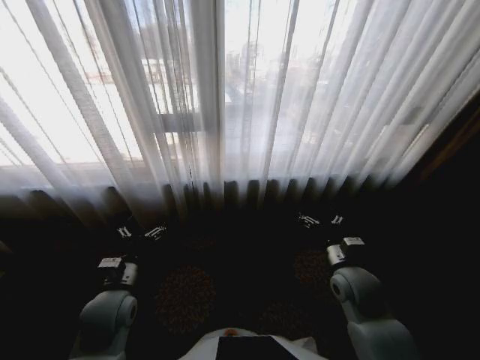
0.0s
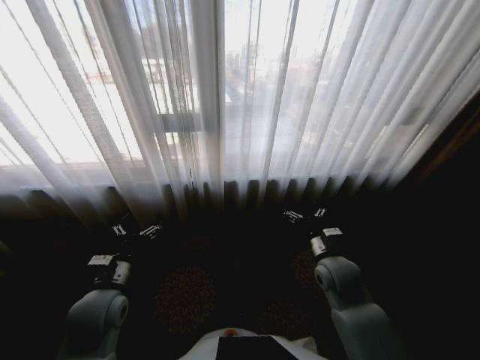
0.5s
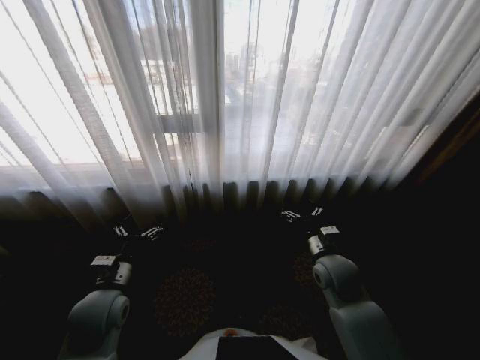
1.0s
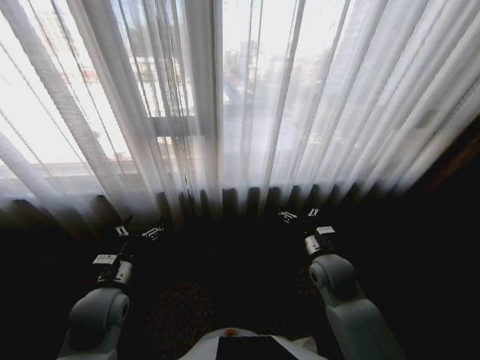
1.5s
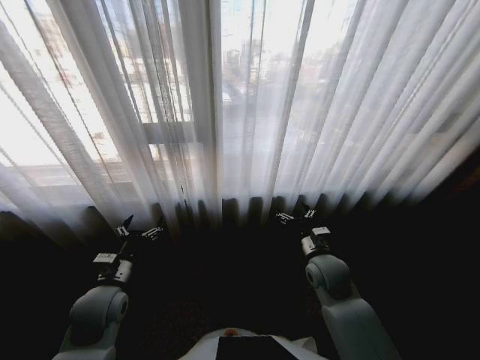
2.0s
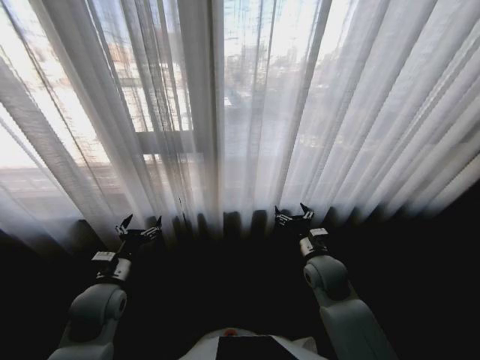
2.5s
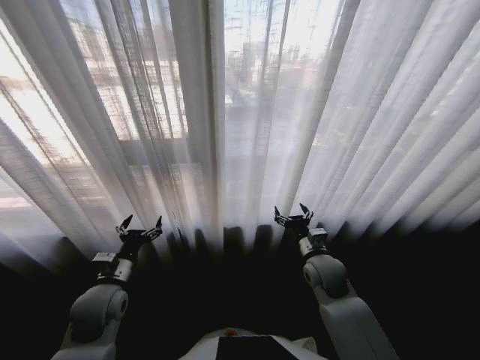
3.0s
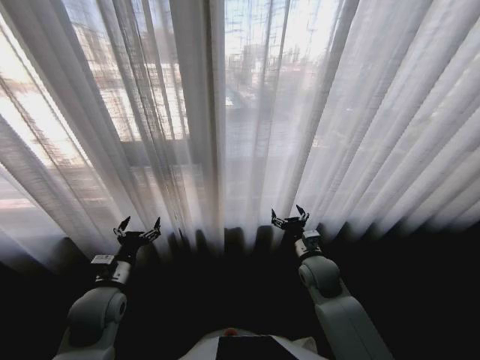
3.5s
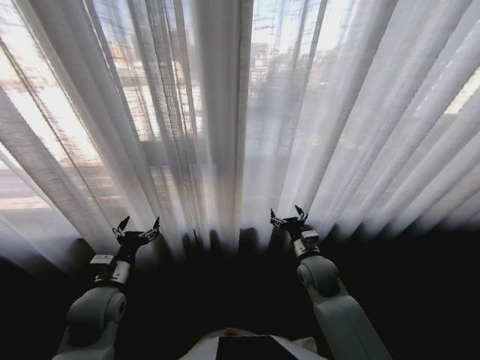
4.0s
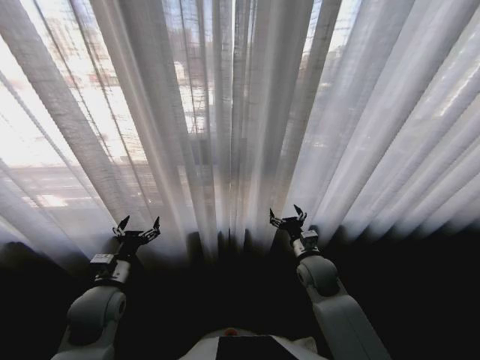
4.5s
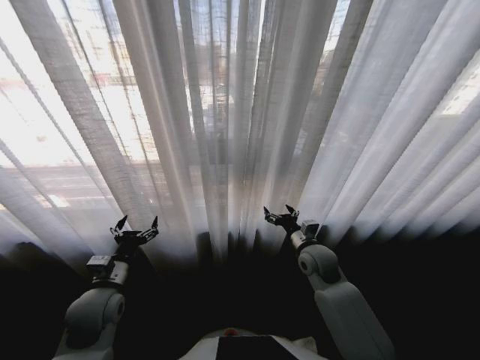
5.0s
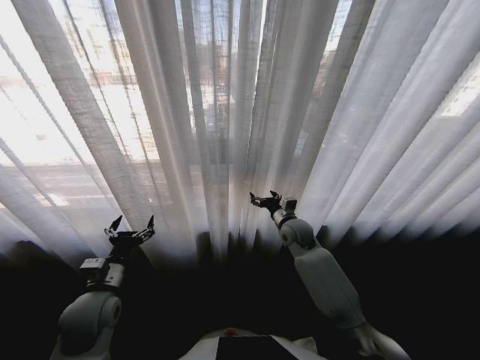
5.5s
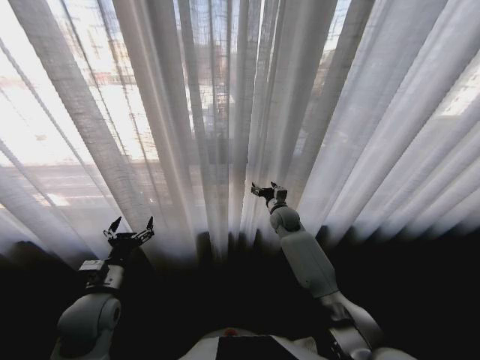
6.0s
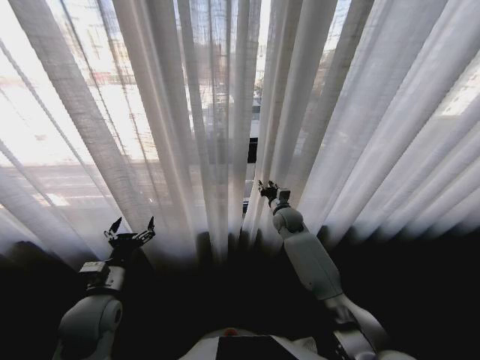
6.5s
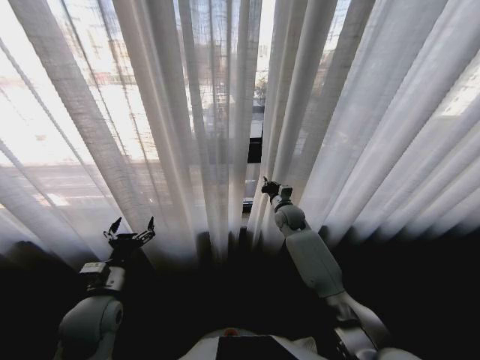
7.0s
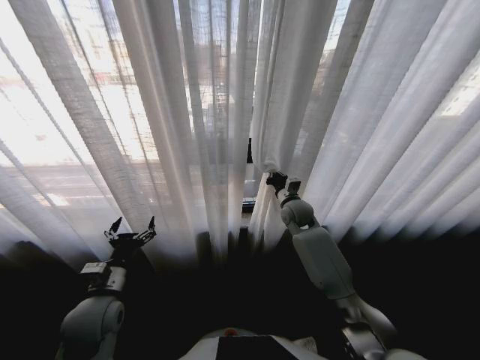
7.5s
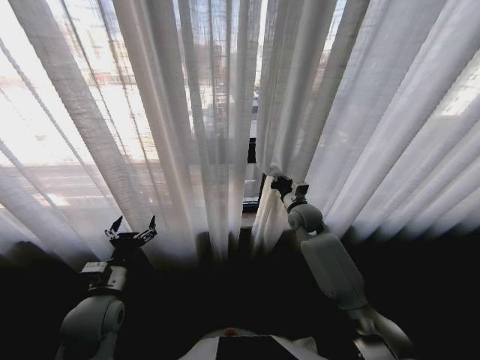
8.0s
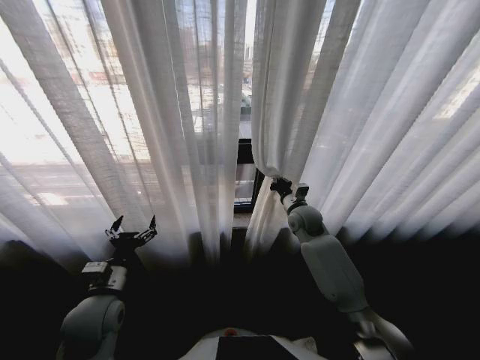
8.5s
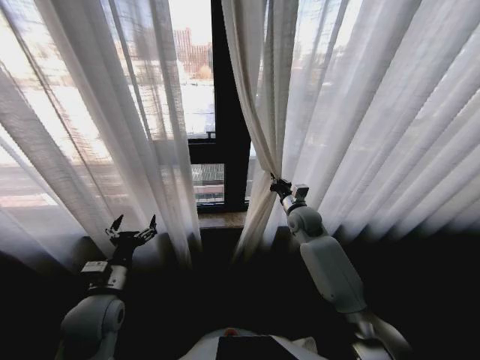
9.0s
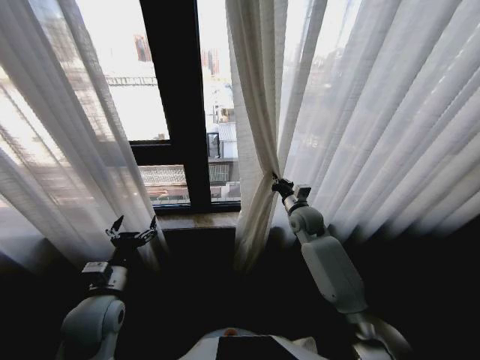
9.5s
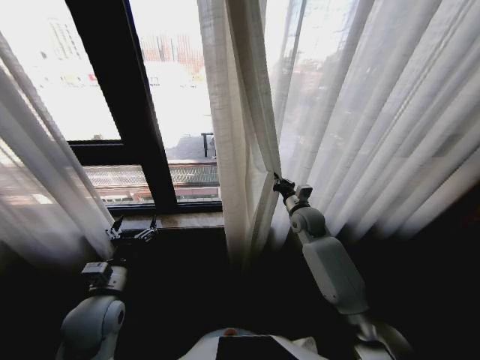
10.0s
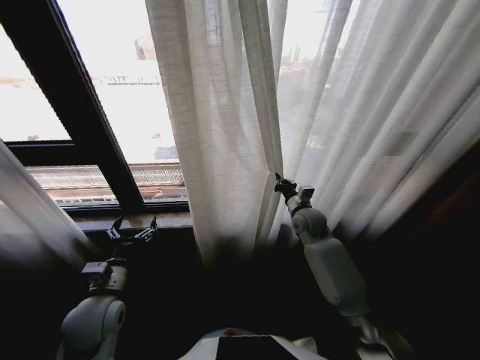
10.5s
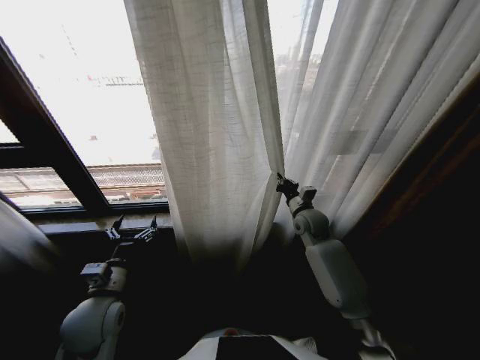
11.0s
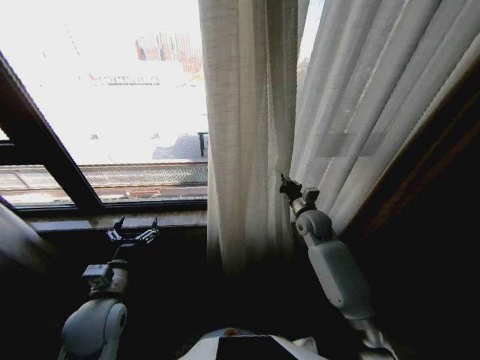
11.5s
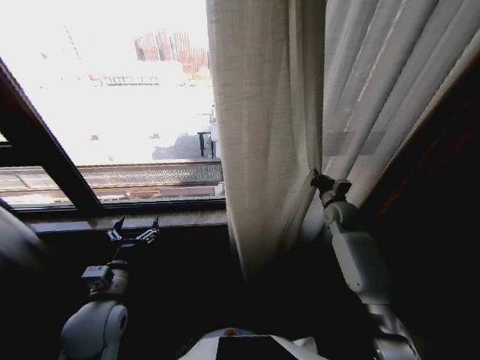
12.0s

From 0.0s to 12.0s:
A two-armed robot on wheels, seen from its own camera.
Task of the whole recording: Open the curtains by pulling them apart, changing their state from closed to fully open.
From 4.0s to 6.0s: The right gripper moves forward, roughly 20 cm.
From 6.0s to 8.0s: The right gripper travels upward by some 5 cm, and closes its fingers.
From 10.0s to 12.0s: The right gripper travels to the right by approximately 10 cm.

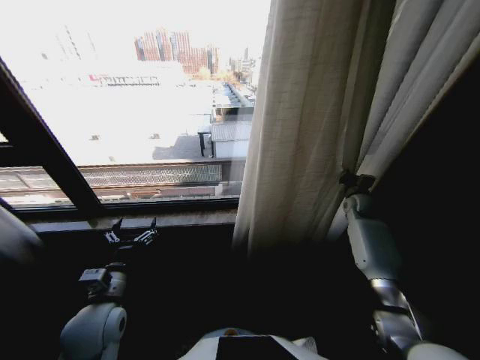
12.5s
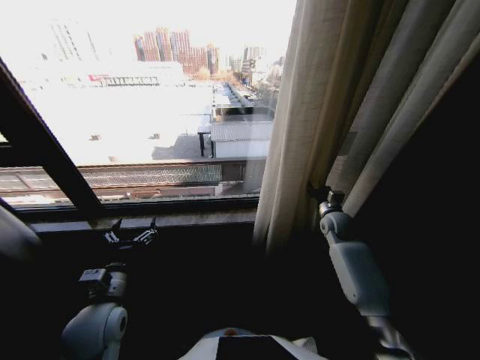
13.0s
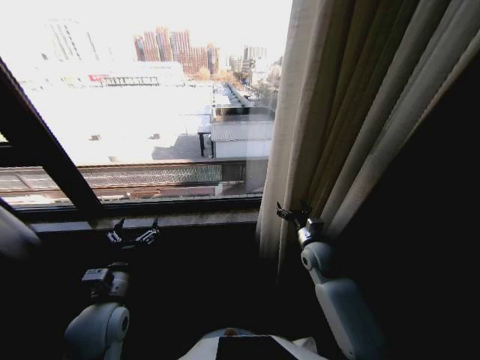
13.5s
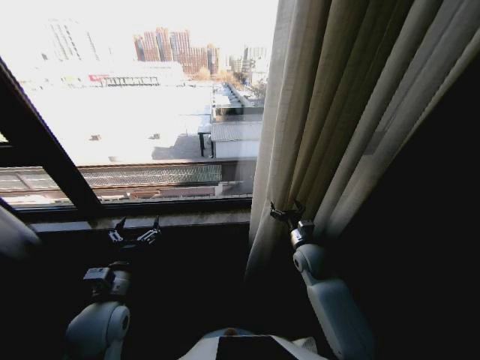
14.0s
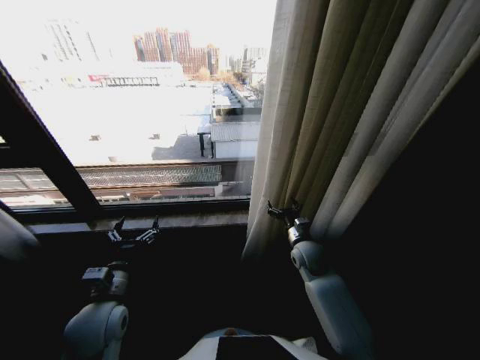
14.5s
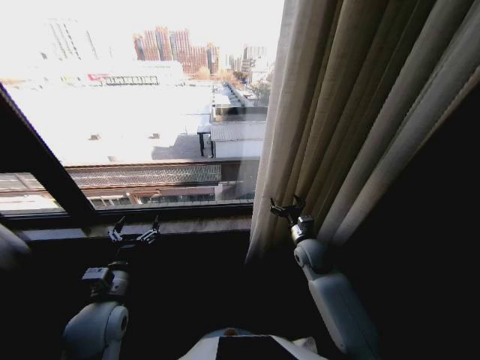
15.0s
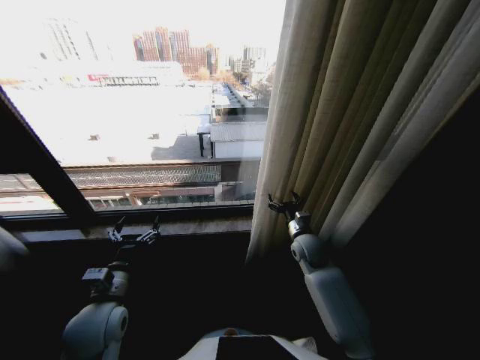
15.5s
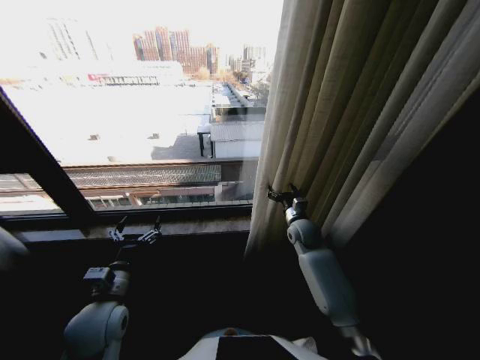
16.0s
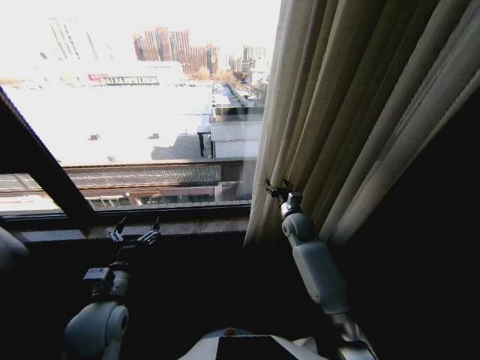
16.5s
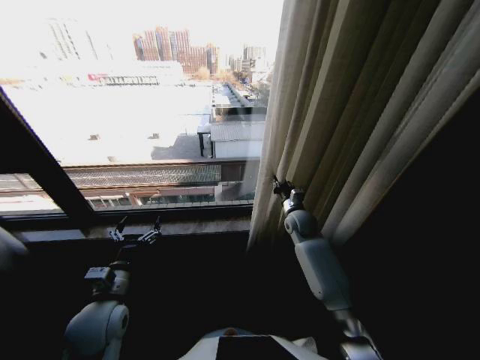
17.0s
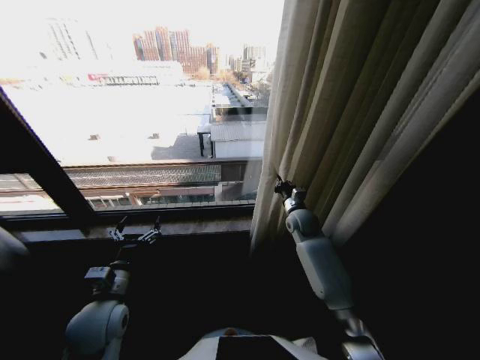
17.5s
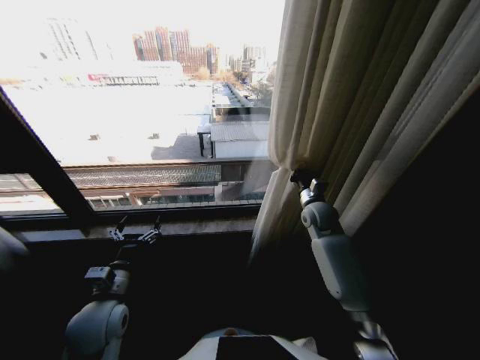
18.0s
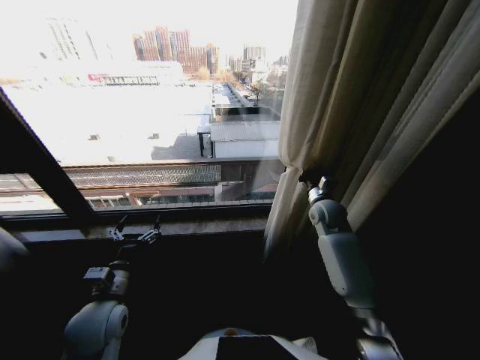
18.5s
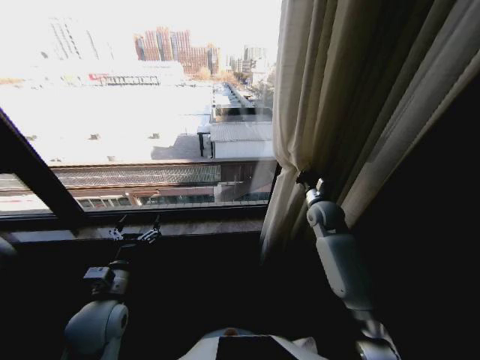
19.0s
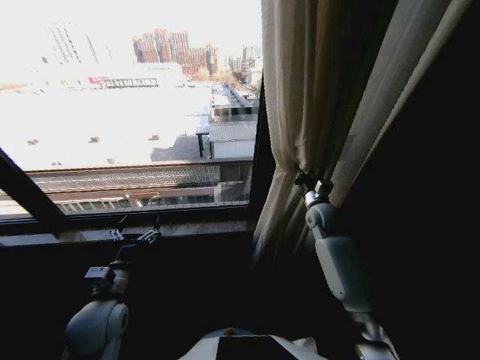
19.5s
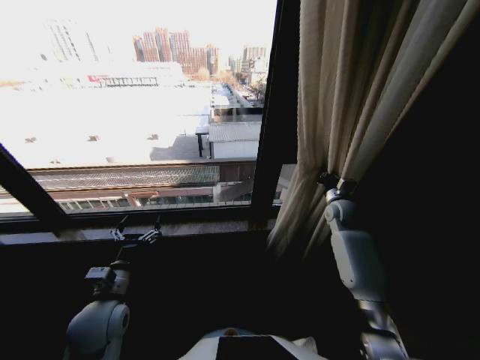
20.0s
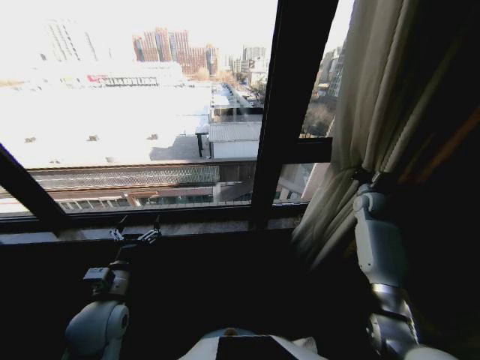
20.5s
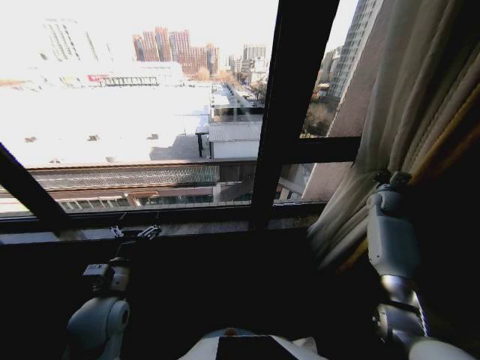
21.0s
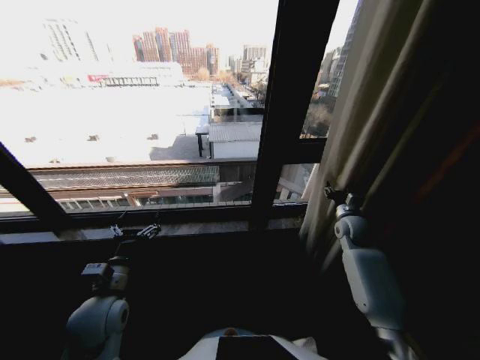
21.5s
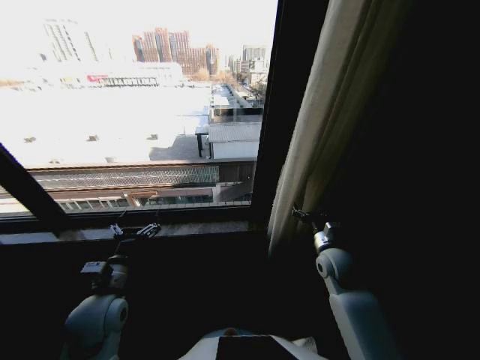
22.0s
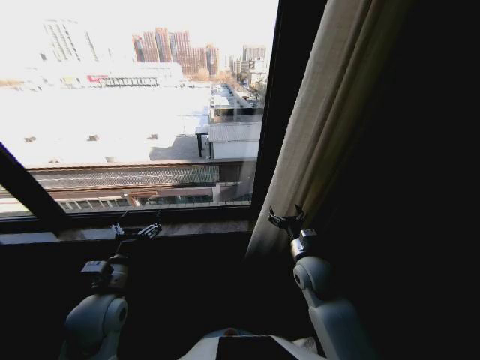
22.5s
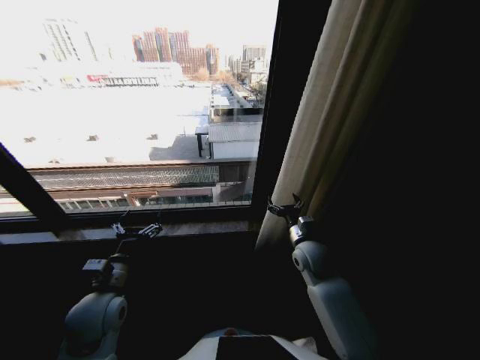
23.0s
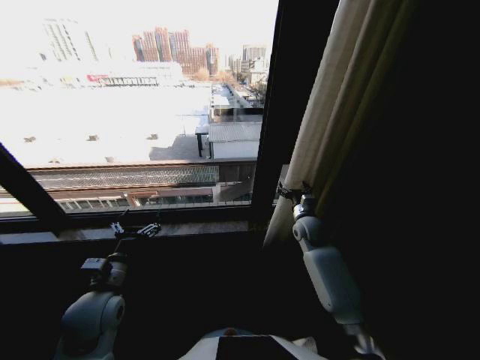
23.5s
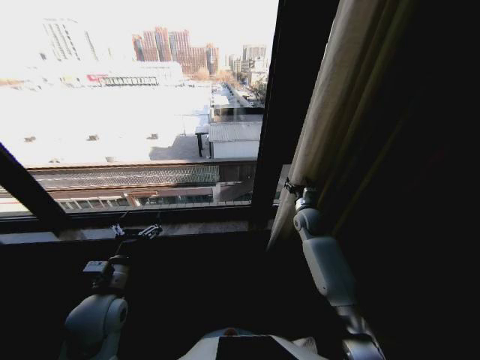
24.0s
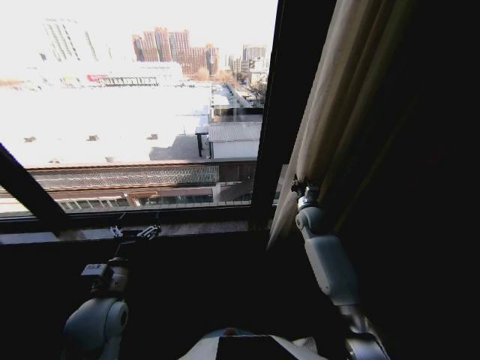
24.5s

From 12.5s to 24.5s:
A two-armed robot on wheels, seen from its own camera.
Task of the whole recording: Open the curtains by pulling them apart, changing their state from closed to fully open.
From 12.5s to 14.5s: The right gripper shifts about 25 cm to the left and backward, and opens its fingers.
From 14.5s to 16.5s: The right gripper travels forward by some 10 cm.
From 16.5s to 18.5s: The right gripper moves to the right and upward, about 10 cm, and closes up.
From 18.5s to 20.5s: The right gripper shifts about 15 cm to the right.
From 20.5s to 22.5s: The right gripper travels to the left and backward by roughly 30 cm, and opens.
From 22.5s to 24.5s: The right gripper travels forward by approximately 20 cm, and closes up.

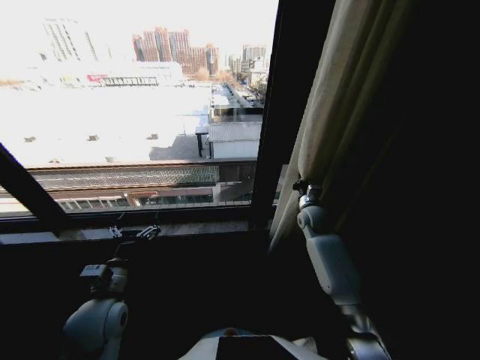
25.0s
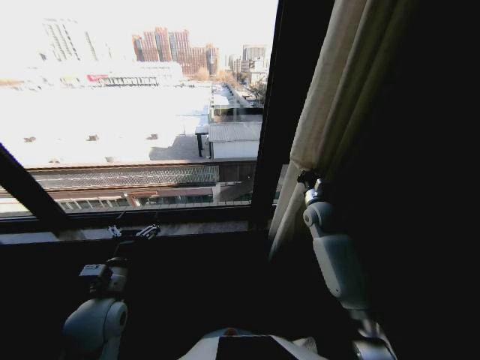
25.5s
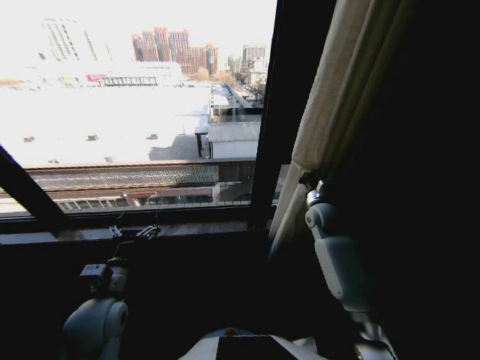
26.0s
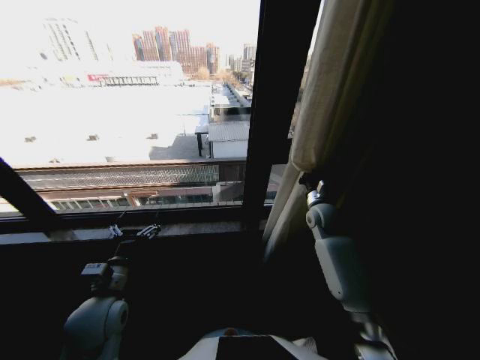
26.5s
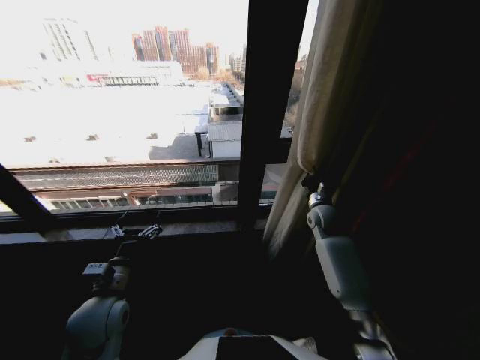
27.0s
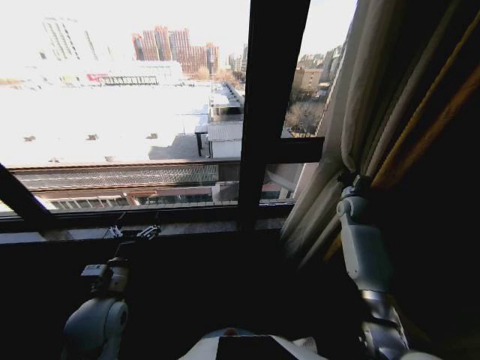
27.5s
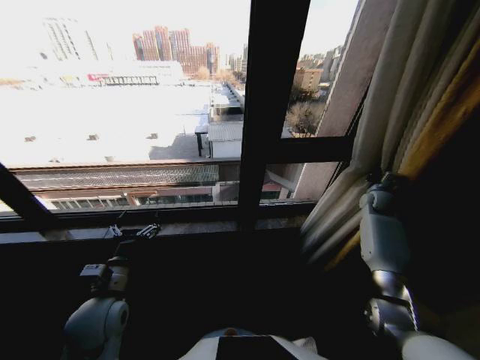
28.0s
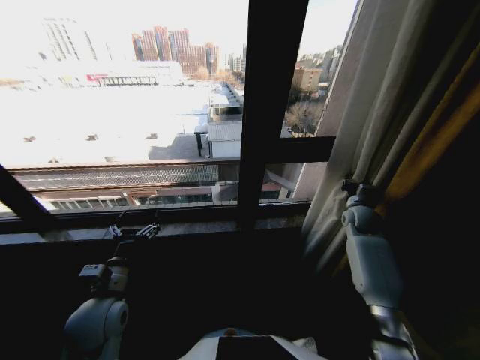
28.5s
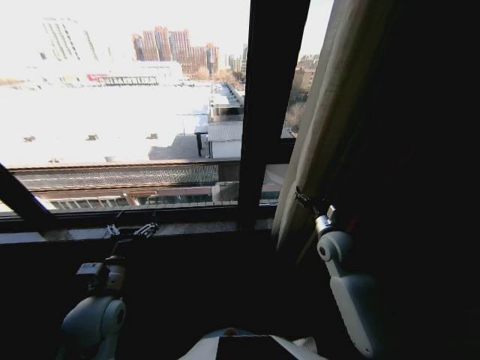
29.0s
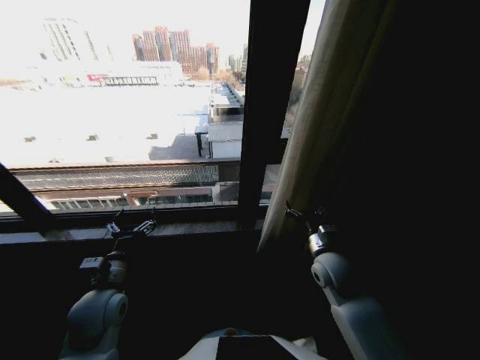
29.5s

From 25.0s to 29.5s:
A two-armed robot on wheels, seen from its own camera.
Task of the whole recording: Open the curtains by pulling them apart, changing their state from closed to fully open.
From 25.0s to 27.0s: The grippers make only small movements.
From 27.0s to 29.5s: The right gripper heads backward, covering some 15 cm, reaches some 20 cm to the right, then returns, and opens.
